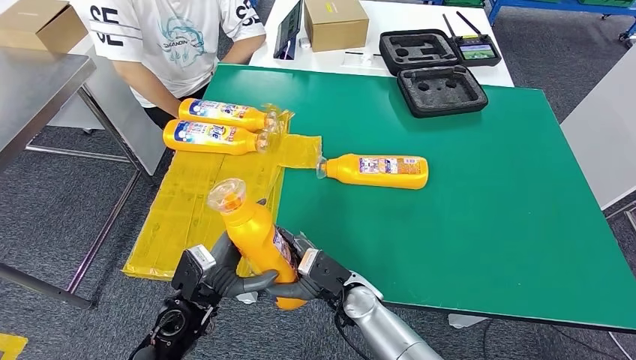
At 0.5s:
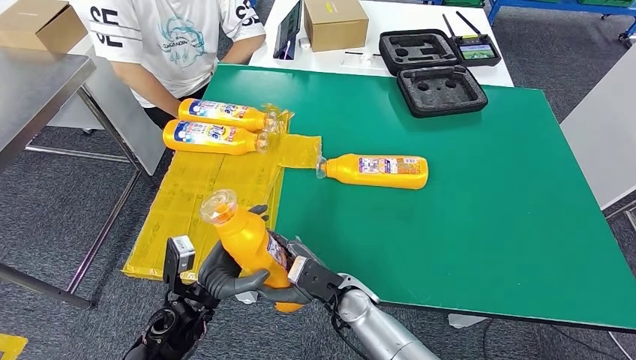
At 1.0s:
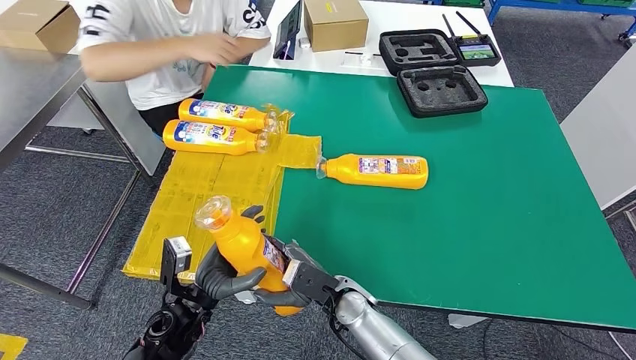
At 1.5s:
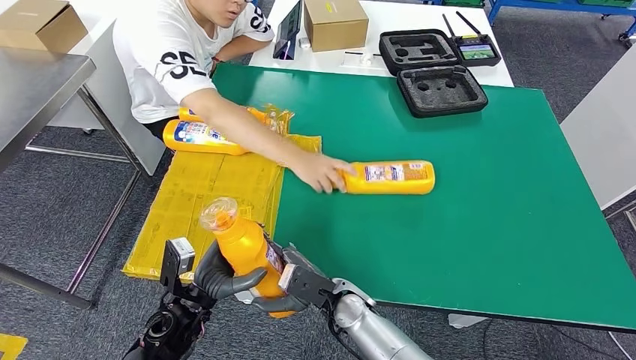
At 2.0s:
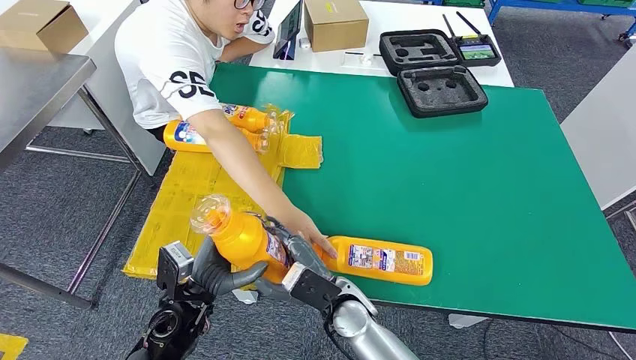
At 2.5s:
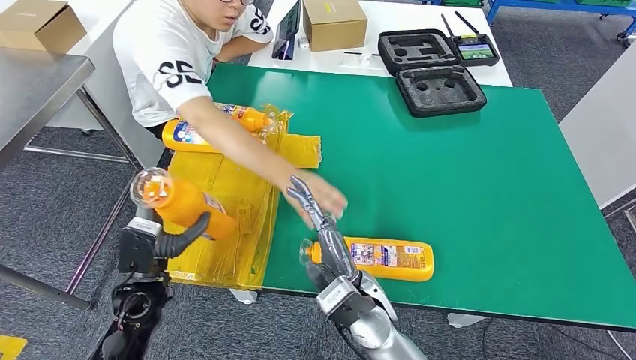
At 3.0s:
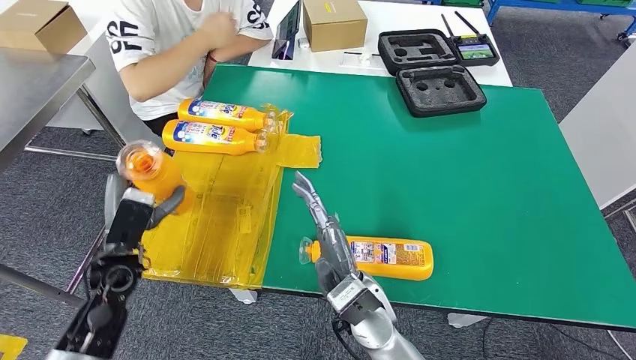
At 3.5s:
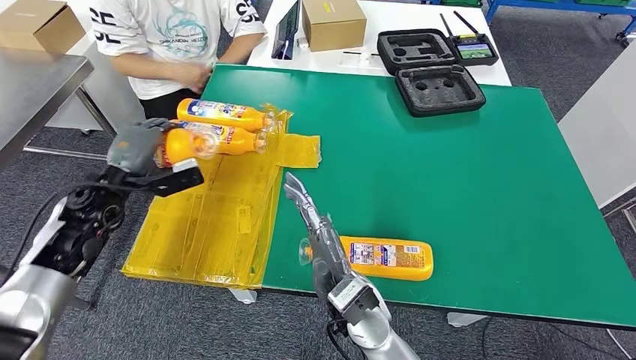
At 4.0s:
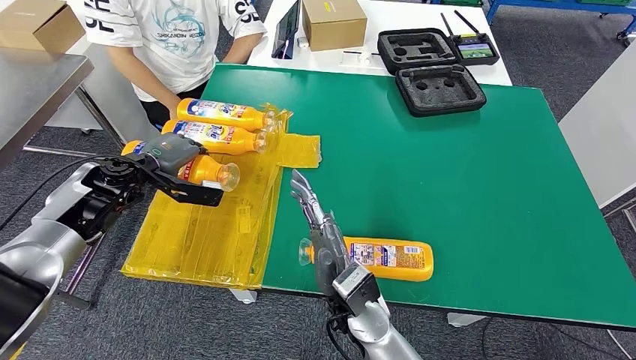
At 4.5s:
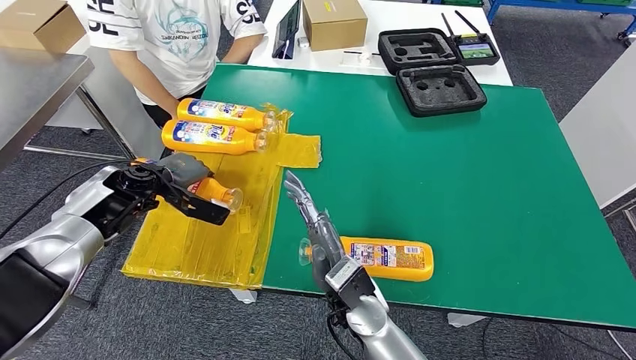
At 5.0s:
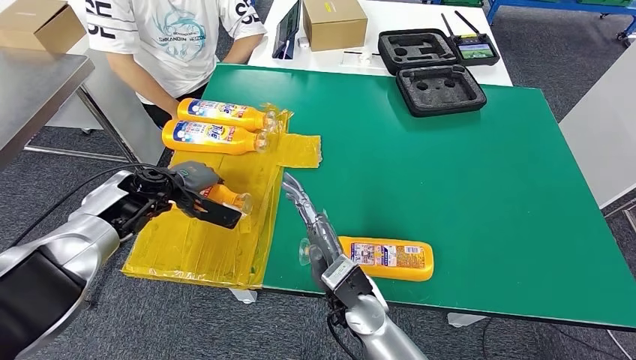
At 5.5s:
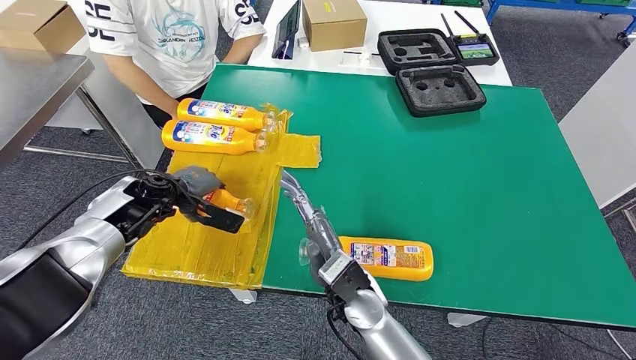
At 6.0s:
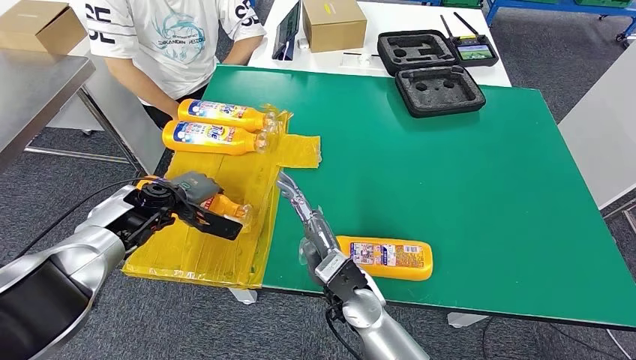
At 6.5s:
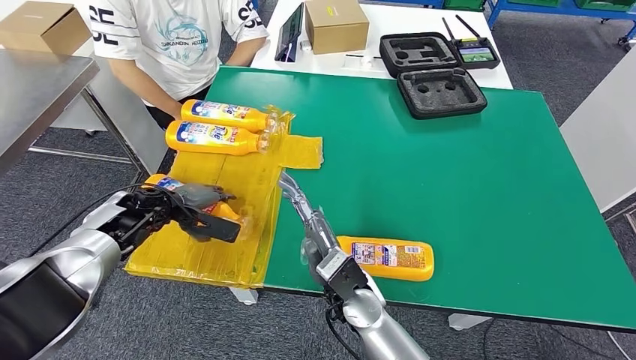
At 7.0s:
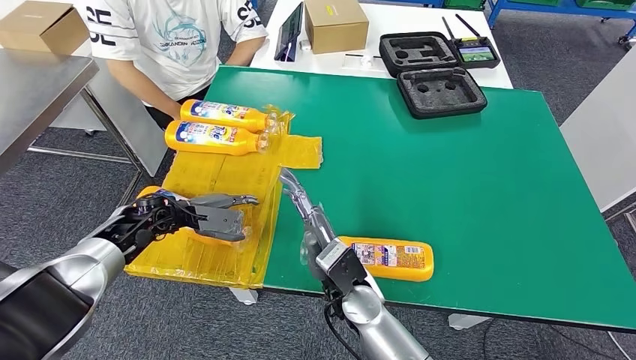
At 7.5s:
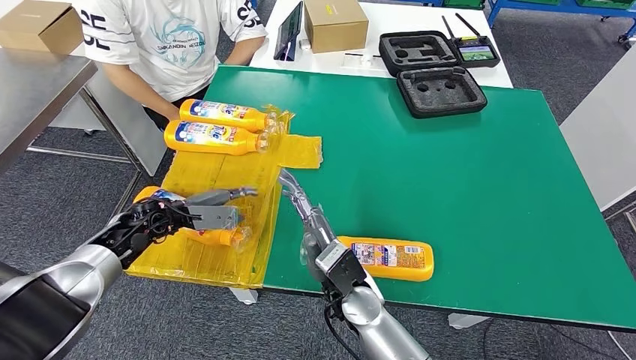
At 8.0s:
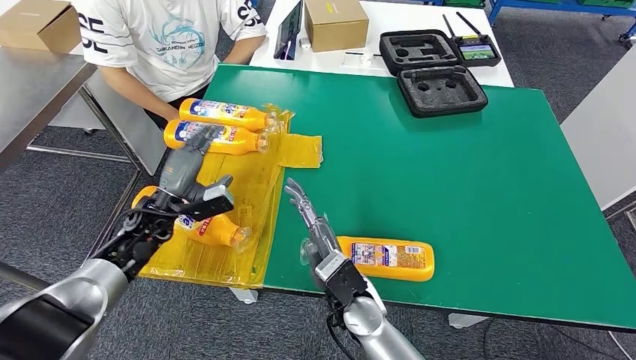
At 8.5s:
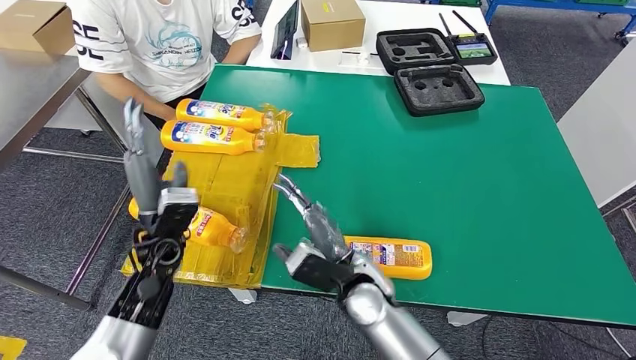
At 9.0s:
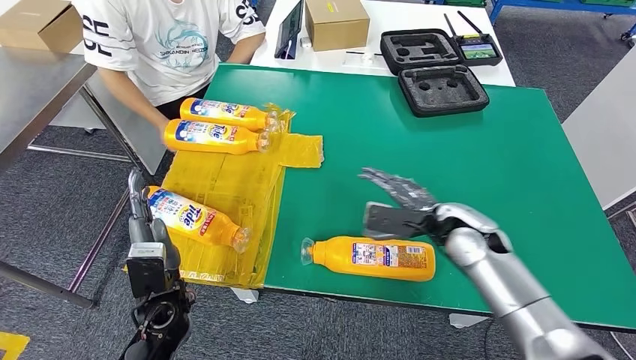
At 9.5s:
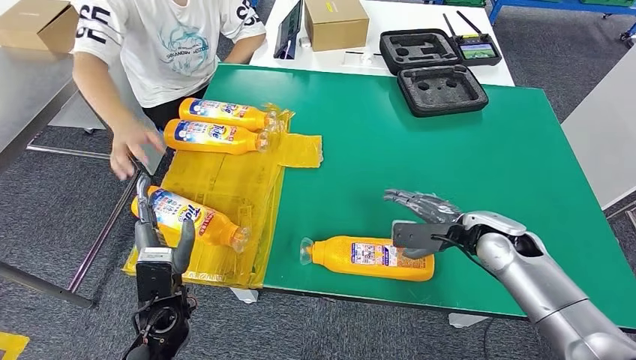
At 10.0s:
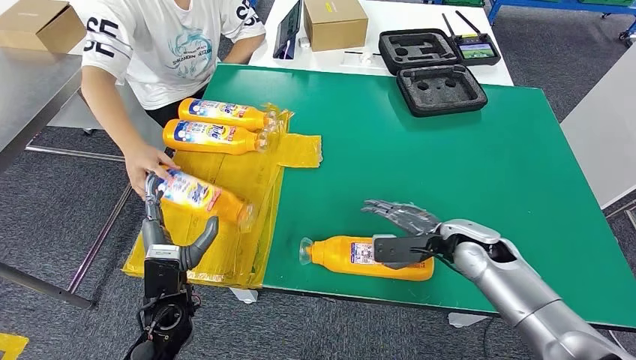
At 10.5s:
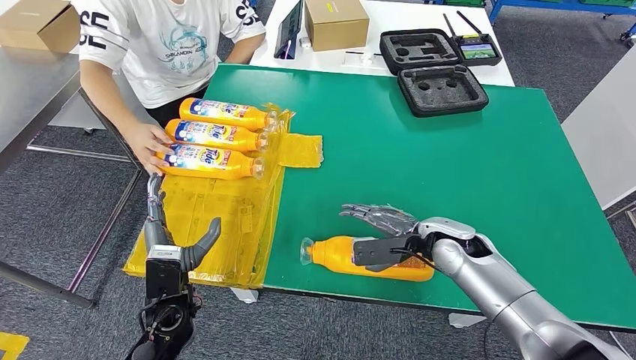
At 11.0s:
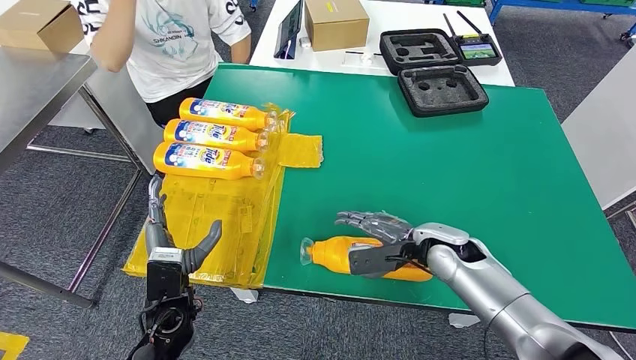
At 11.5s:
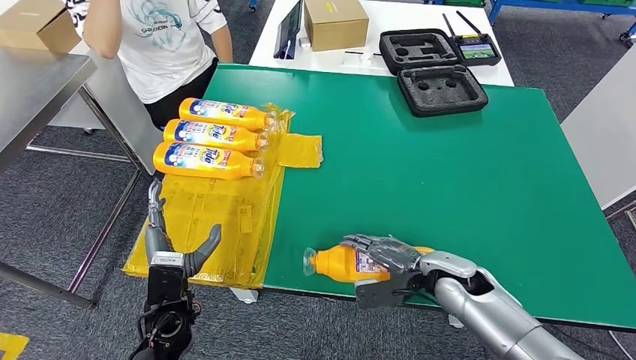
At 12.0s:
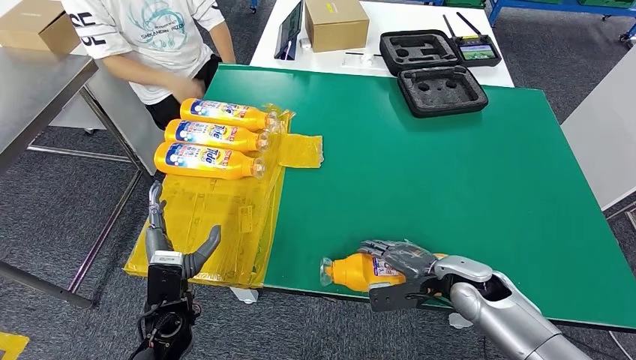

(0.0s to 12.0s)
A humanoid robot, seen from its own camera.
Step, 0.0s - 6.0s: Flip the bottle to face forward.
0.0s - 2.0s: The hands stay close to where they were, moving slightly.

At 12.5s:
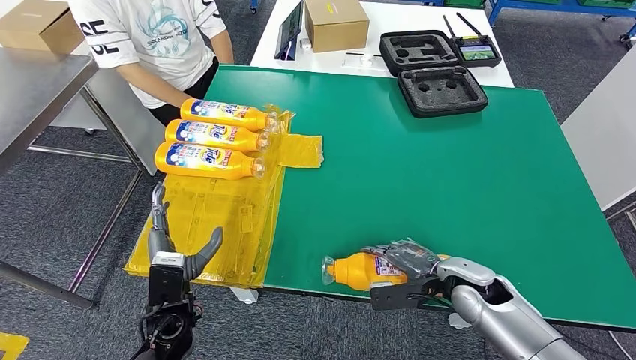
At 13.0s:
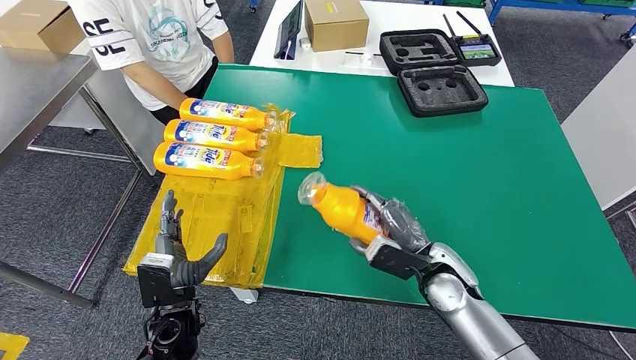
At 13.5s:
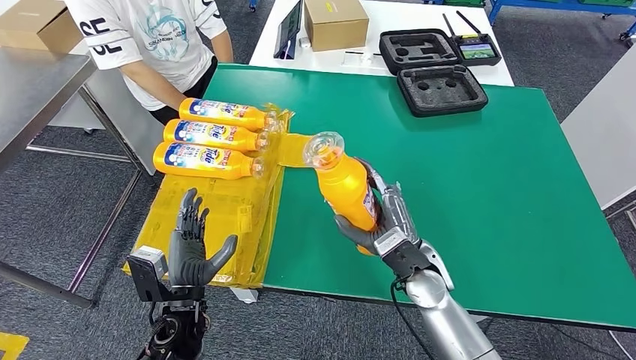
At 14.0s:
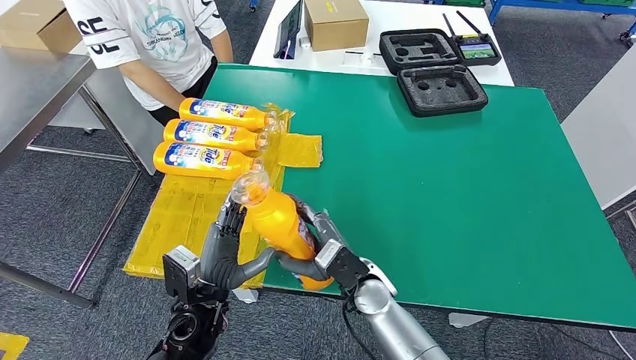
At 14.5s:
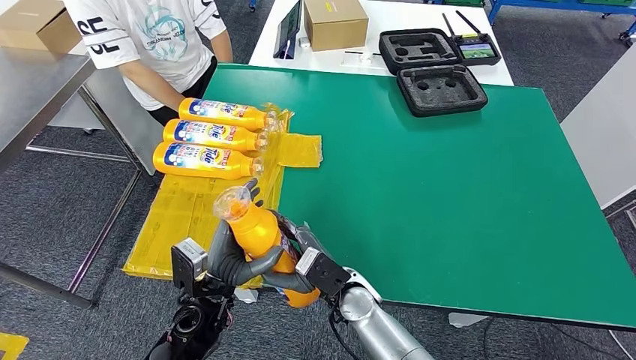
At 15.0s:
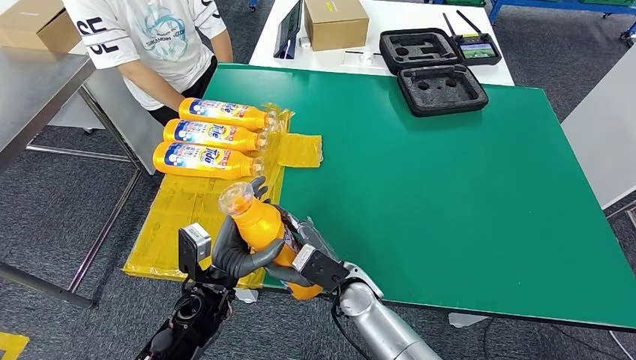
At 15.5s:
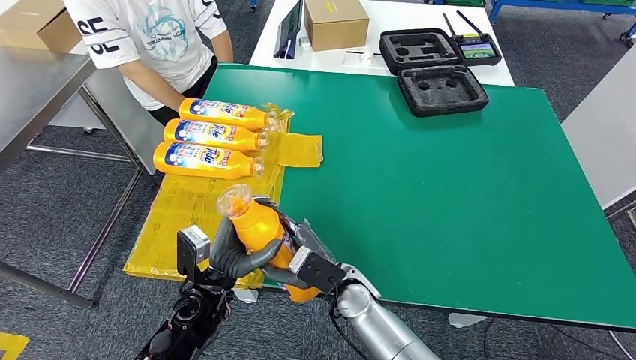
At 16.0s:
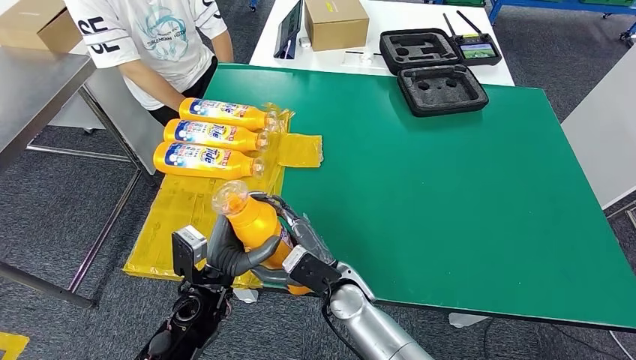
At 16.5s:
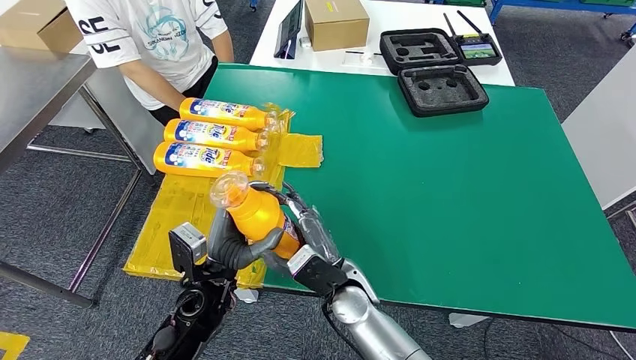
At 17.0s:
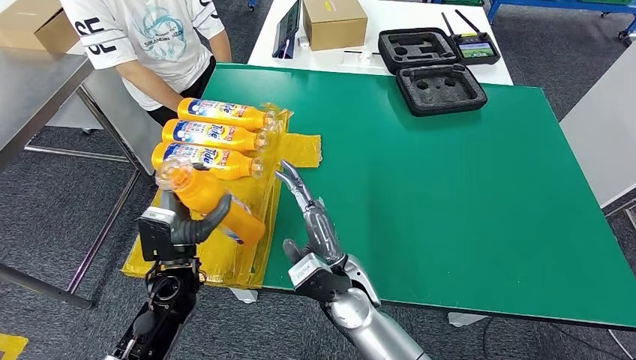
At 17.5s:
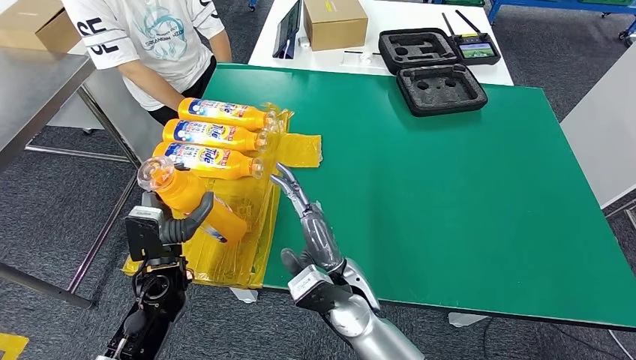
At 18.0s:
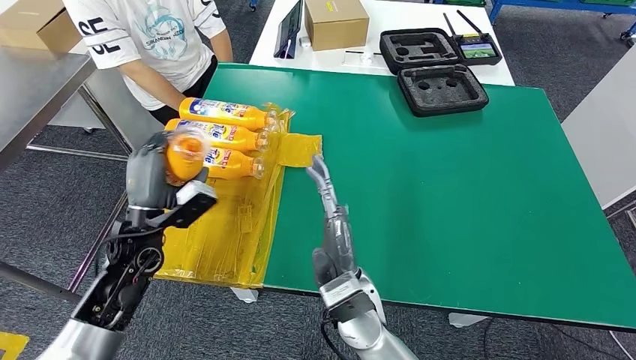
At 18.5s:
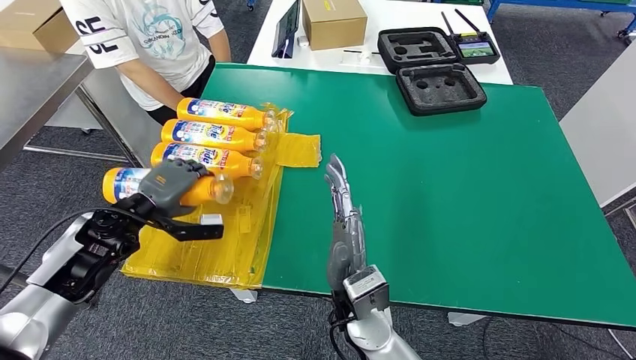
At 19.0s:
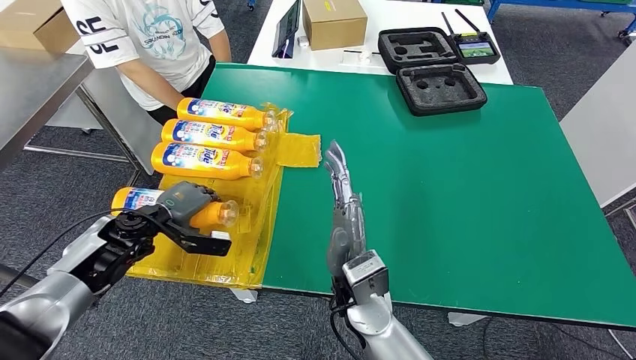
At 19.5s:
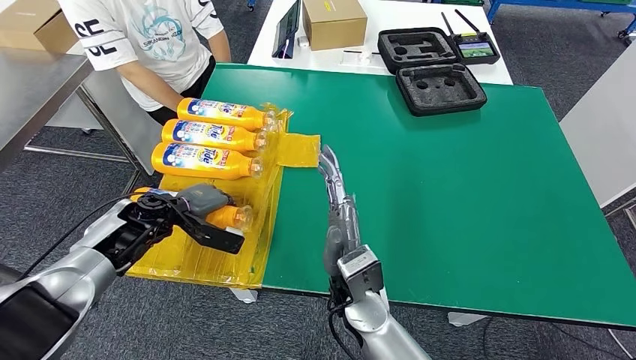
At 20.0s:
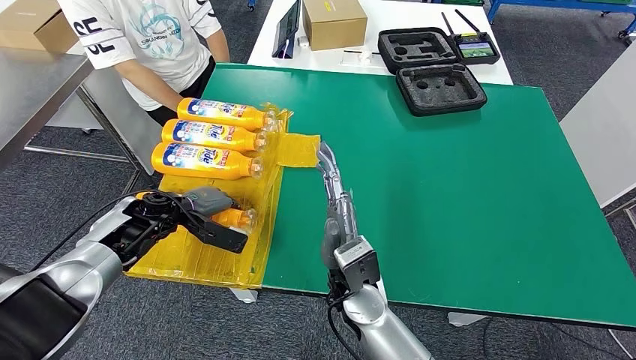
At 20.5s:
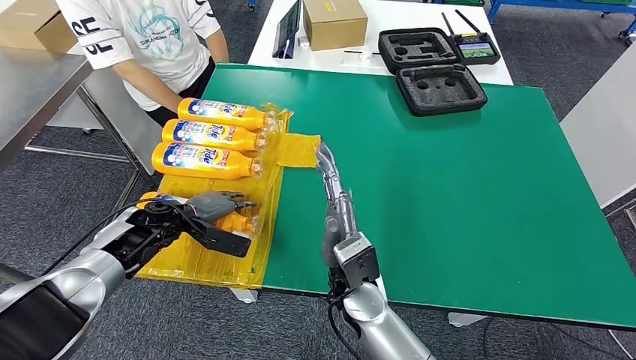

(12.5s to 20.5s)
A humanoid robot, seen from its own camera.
Step, 12.5s - 14.5s: Pick up the bottle from the table.
Step, 15.0s - 20.5s: Flip the bottle to face forward.
12.5s - 14.5s: The right hand is displaced to the left by roughly 20 cm. The left hand moves to the right, some 5 cm.
14.5s - 16.5s: The hands move only a little.
18.5s - 20.5s: The left hand shifts roughly 5 cm downward.
